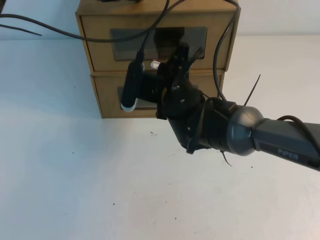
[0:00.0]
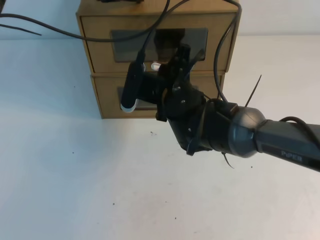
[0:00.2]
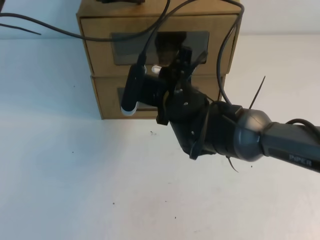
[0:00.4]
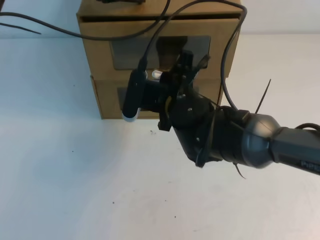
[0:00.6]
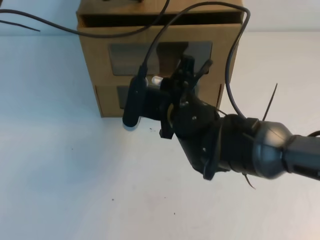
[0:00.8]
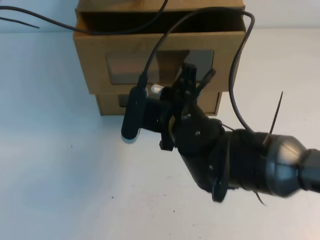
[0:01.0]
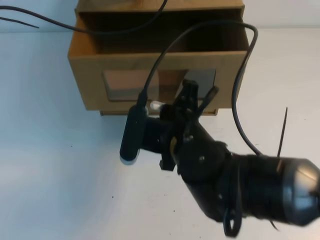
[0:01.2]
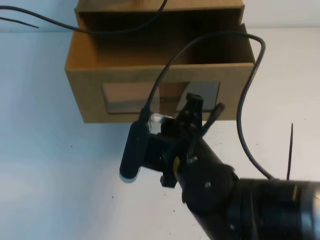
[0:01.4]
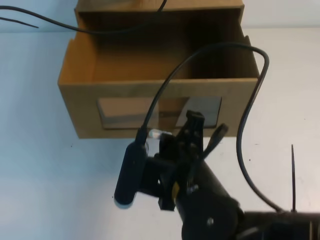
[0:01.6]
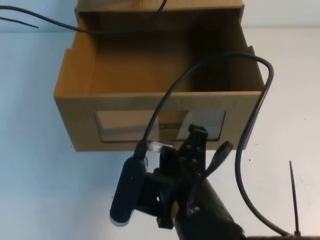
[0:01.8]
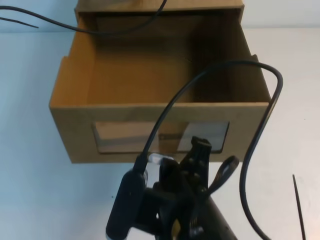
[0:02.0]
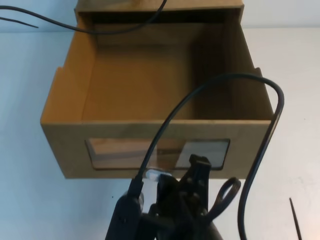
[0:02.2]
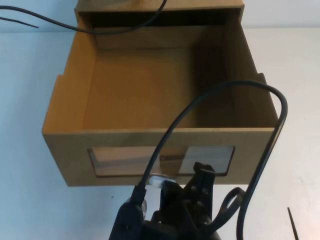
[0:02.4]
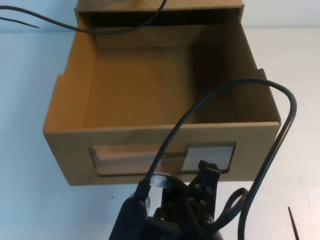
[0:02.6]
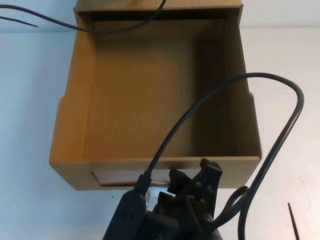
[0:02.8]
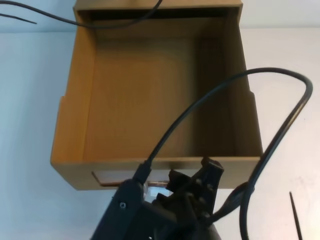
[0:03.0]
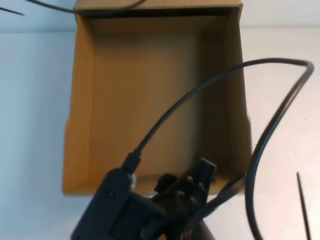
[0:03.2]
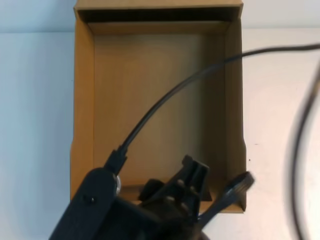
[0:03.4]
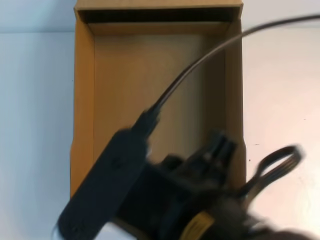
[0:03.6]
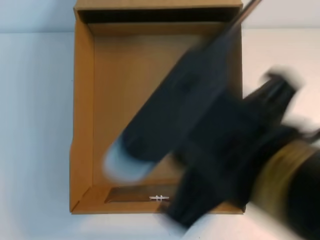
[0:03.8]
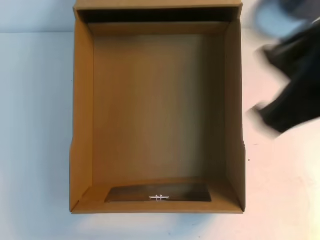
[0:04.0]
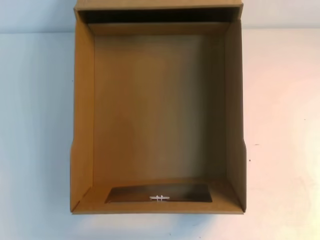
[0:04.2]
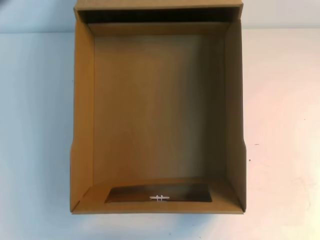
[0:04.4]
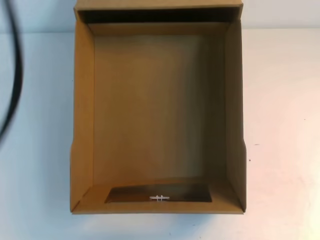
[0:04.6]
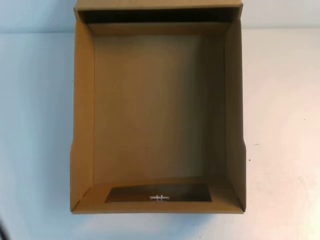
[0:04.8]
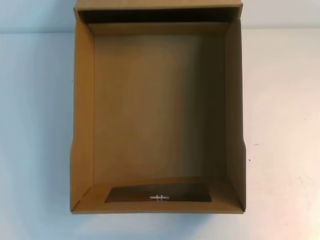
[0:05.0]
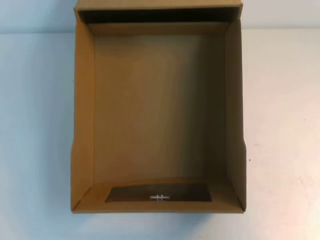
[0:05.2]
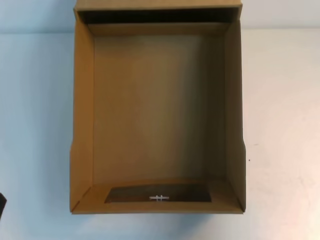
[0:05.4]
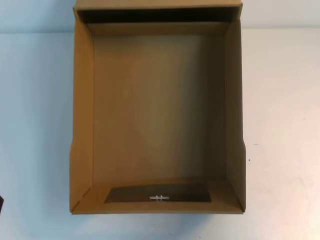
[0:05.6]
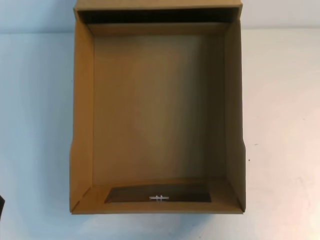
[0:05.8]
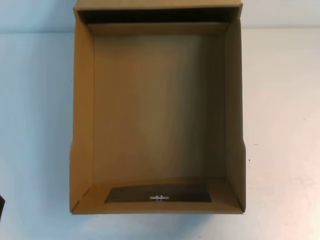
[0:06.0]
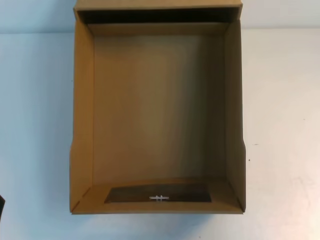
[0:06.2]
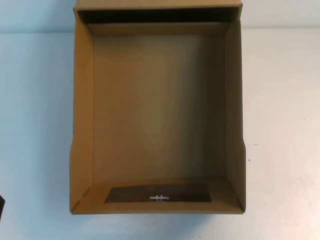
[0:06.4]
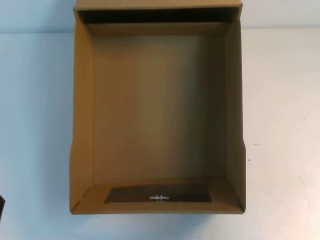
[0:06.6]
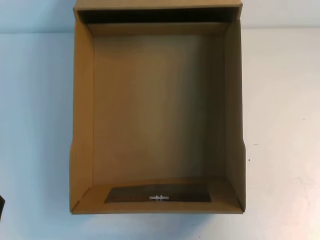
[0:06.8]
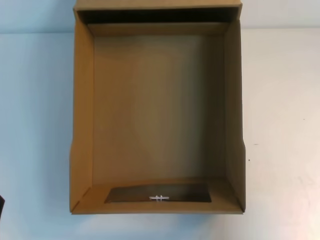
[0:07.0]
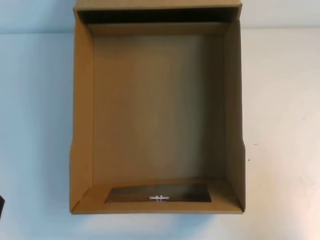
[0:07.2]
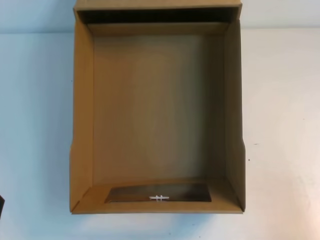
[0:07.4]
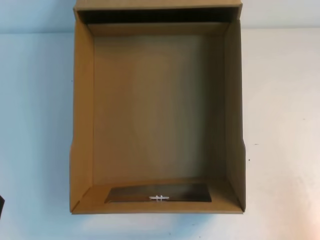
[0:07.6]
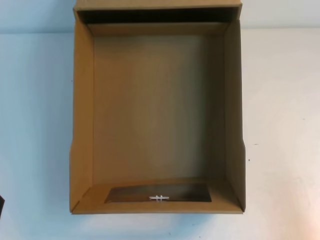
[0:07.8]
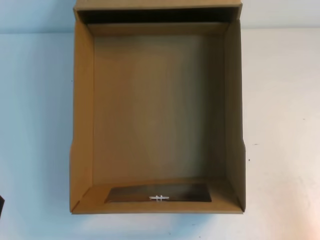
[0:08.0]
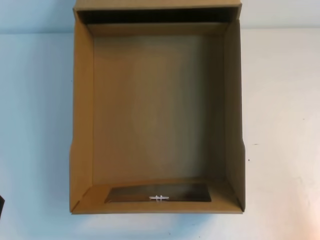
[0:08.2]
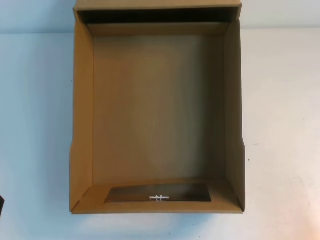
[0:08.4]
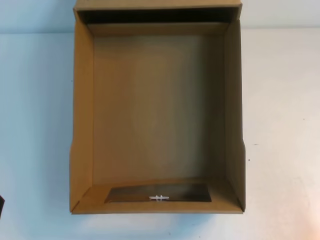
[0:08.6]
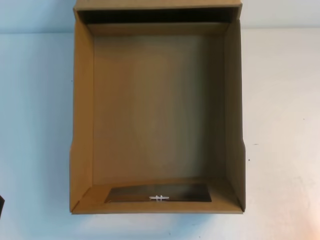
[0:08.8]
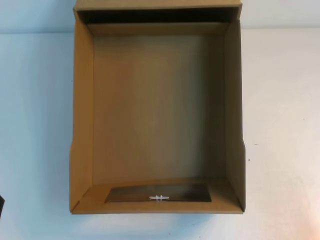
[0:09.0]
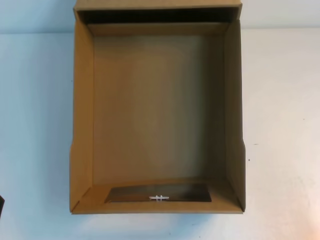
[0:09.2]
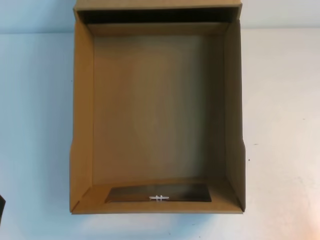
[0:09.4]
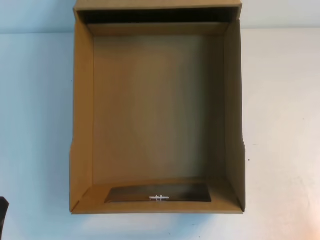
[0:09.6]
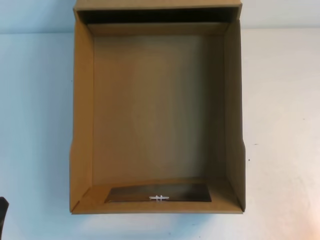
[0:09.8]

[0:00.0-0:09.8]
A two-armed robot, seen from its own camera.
Task of the whole recording: open the shoebox on the table.
0:00.0 to 0:01.4: The right gripper travels backward by some 15 cm.
0:01.4 to 0:02.8: The right gripper heads backward, covering about 15 cm, and opens.
0:02.8 to 0:04.2: The right gripper goes about 25 cm upward and to the right, and closes its fingers. The left gripper heads backward and upward, covering roughly 30 cm.
0:04.2 to 0:05.6: The right gripper goes roughly 15 cm downward, to the right and forward. Meanwhile the left gripper shifts some 40 cm downward and backward.
0:05.6 to 0:07.0: The grippers stay close to where they were, moving slightly.
0:07.0 to 0:08.4: The right gripper travels downward and backward by approximately 20 cm.

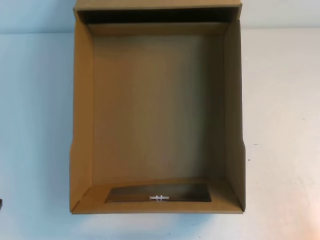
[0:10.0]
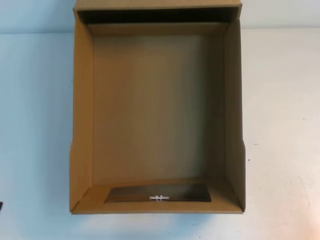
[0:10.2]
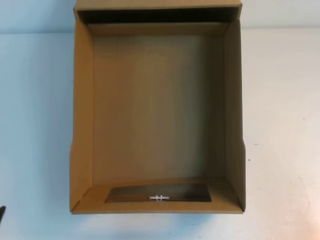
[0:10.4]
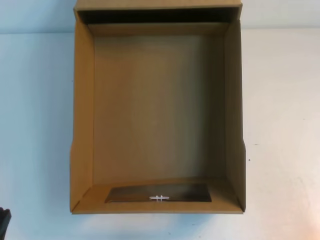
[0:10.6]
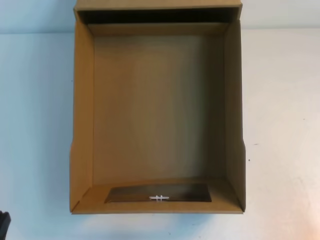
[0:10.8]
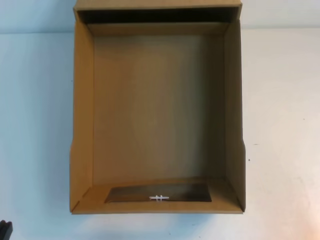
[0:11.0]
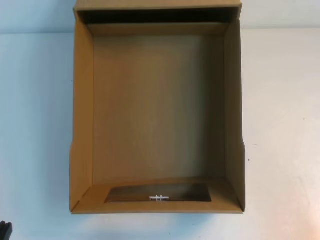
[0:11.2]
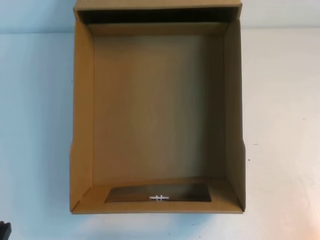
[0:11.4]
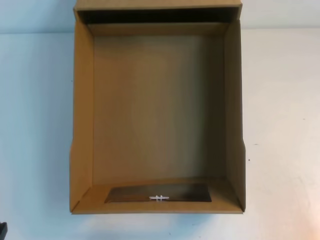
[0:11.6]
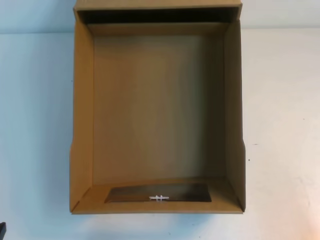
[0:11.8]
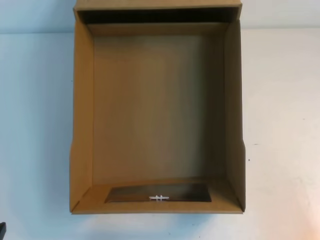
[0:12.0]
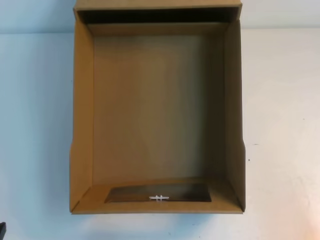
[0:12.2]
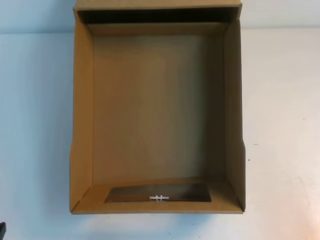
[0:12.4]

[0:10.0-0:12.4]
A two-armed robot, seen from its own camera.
Task of the whole recording: open the shoebox on the table.
0:11.2 to 0:12.4: The two grippers keep their place.

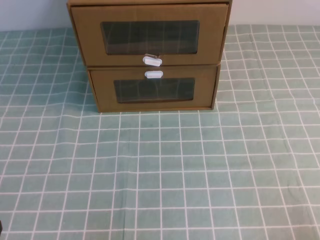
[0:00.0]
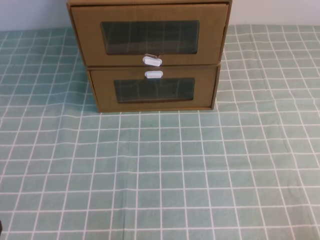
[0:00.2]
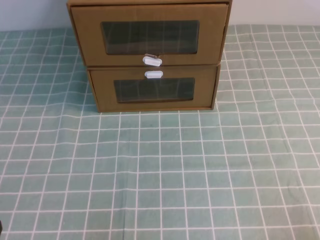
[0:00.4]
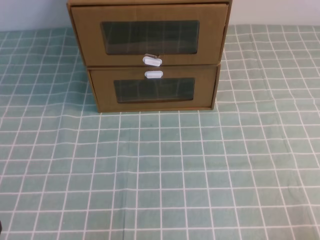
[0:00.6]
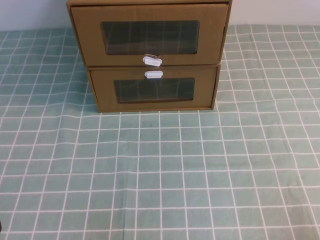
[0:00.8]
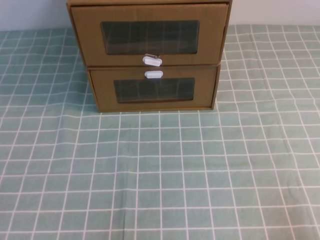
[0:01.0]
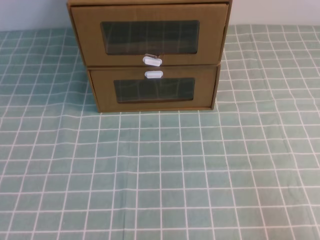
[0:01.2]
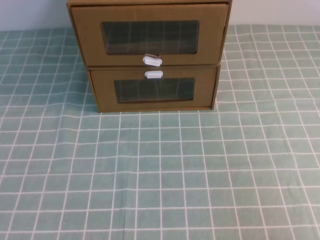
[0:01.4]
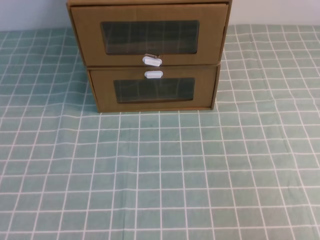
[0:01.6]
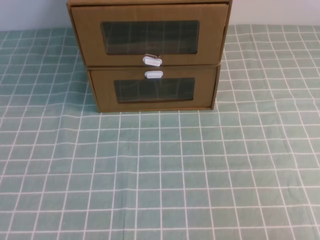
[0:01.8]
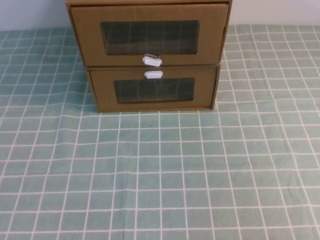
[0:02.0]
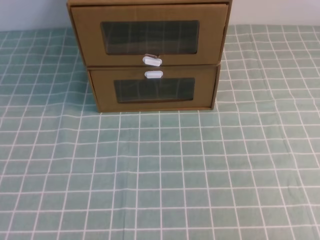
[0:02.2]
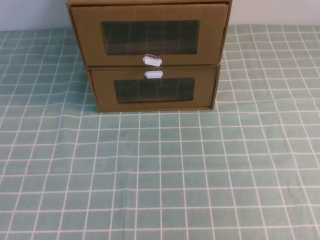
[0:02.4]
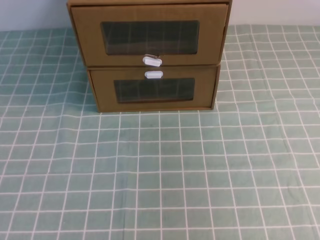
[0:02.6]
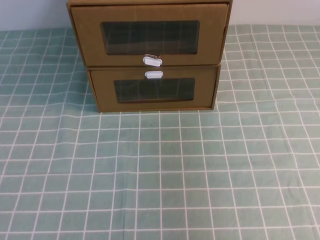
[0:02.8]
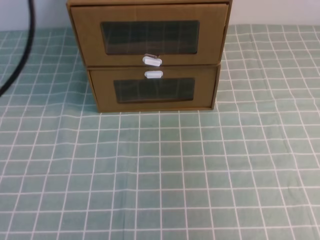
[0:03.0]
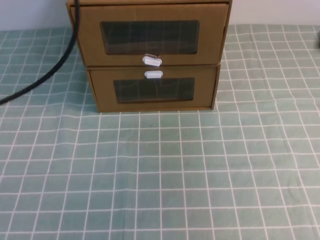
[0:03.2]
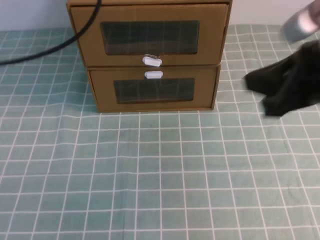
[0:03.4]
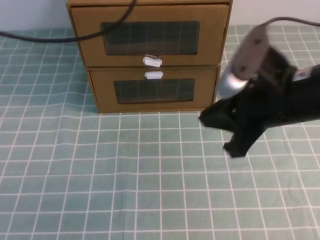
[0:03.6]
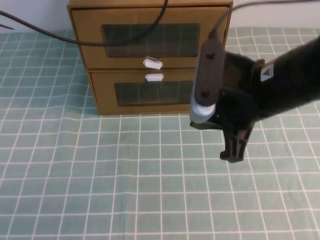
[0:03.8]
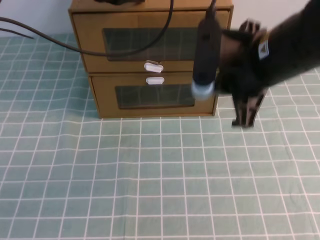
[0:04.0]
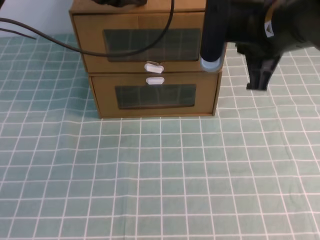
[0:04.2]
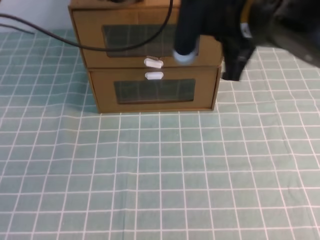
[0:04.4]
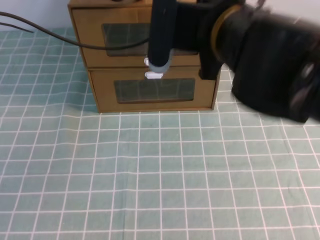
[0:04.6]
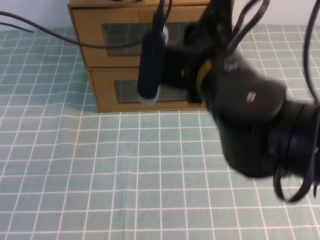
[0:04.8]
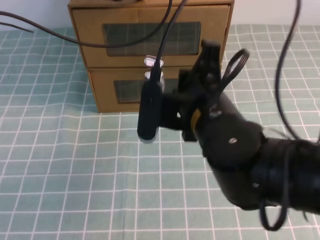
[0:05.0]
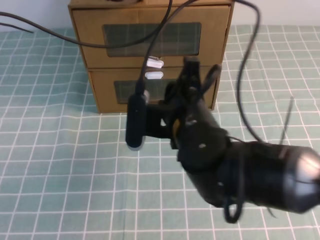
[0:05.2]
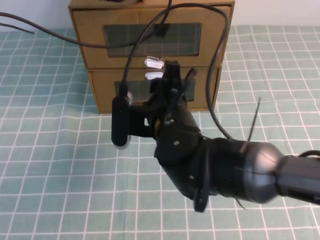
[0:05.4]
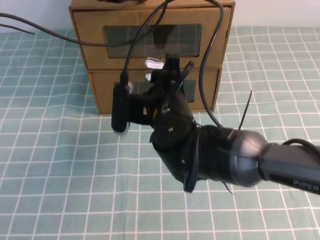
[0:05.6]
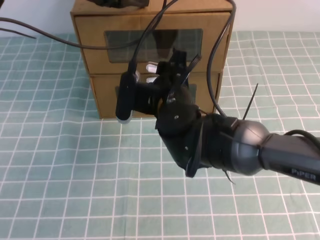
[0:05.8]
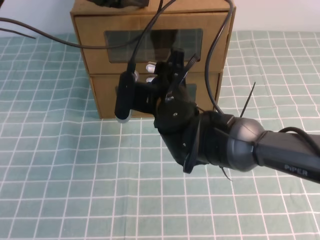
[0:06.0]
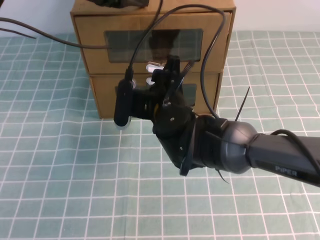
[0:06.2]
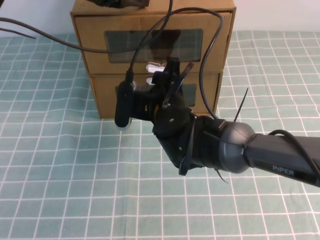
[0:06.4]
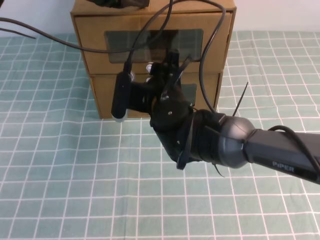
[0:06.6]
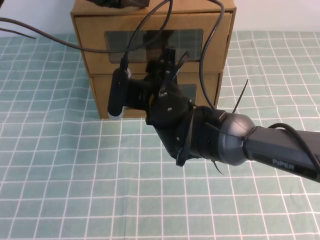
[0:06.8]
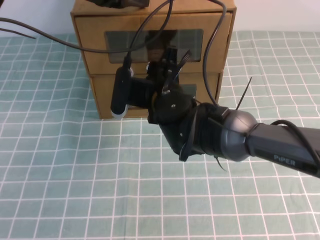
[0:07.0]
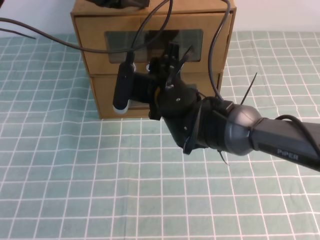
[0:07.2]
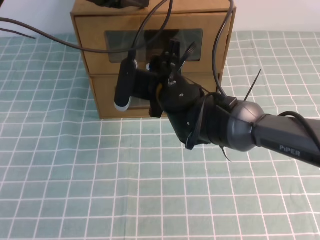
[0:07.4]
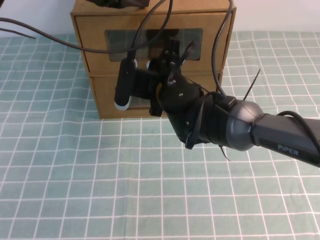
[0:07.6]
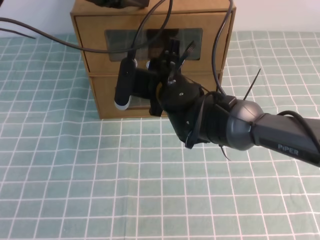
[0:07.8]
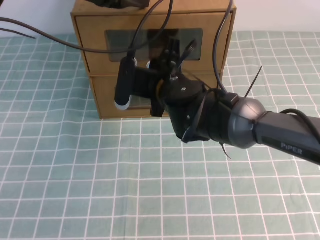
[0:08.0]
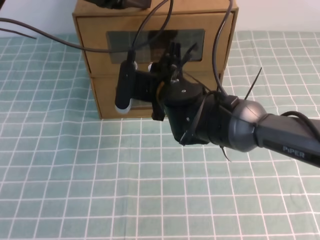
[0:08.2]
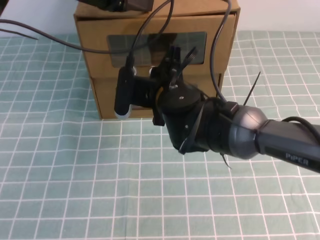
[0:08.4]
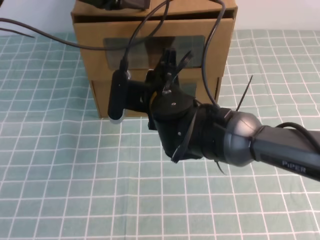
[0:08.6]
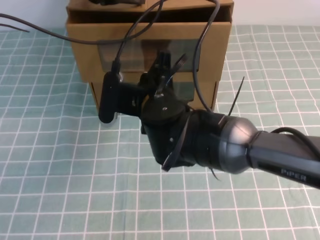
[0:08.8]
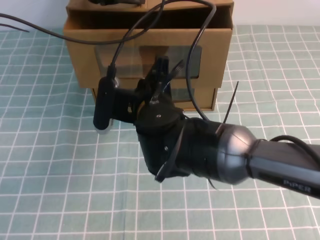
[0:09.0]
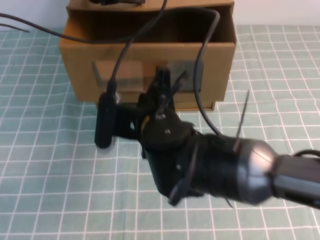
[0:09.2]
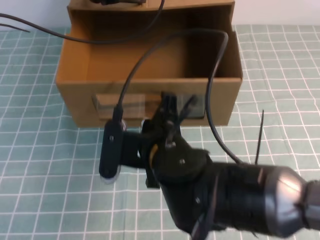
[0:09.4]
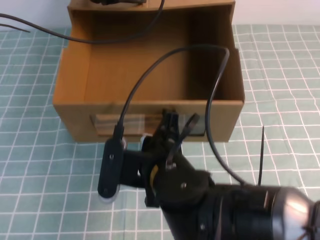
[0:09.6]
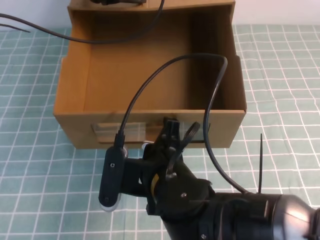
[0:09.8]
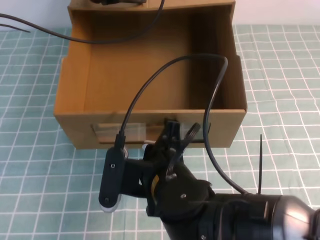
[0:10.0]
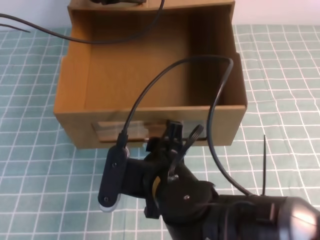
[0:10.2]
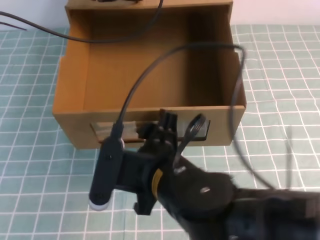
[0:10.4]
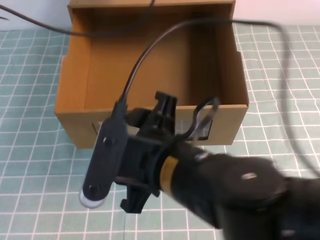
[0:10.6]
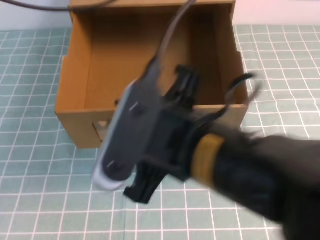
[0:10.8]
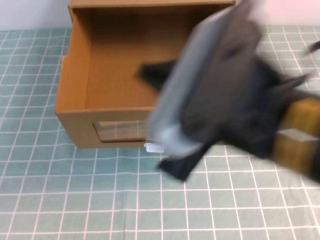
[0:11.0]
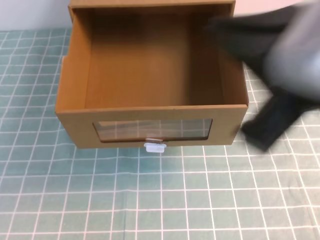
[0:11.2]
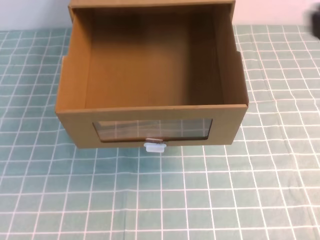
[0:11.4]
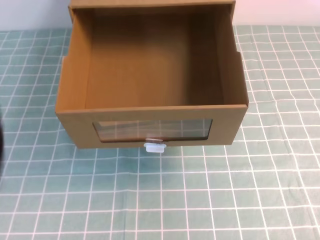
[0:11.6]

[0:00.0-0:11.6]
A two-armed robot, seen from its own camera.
Task of the whole recording: open the shoebox on the cyan tablecloth.
0:02.8 to 0:04.4: The left gripper heads forward and to the right, covering approximately 35 cm; the right gripper is displaced to the left and forward by approximately 25 cm.
0:04.4 to 0:05.8: The right gripper shifts about 20 cm downward and to the left, and opens up.
0:05.8 to 0:07.2: There are only small adjustments of the grippers.
0:07.2 to 0:08.8: The right gripper closes its fingers.
0:08.8 to 0:10.2: The right gripper shifts approximately 10 cm backward, and opens up.
0:10.2 to 0:11.6: The right gripper shifts about 30 cm to the right and upward, and closes up, while the left gripper heads backward and upward, covering about 40 cm.
